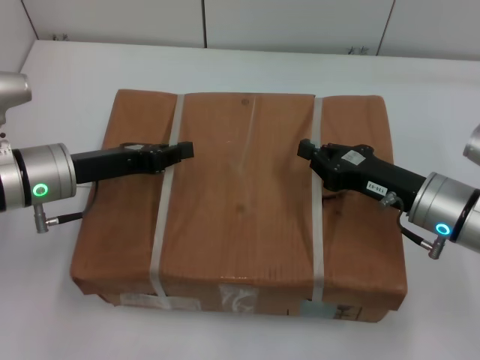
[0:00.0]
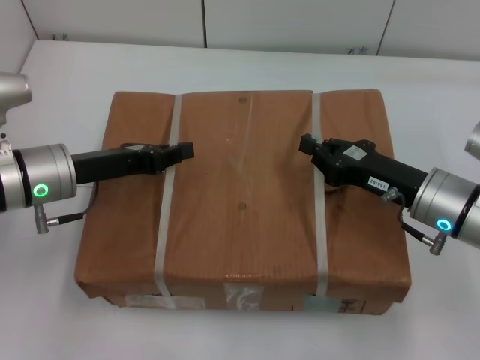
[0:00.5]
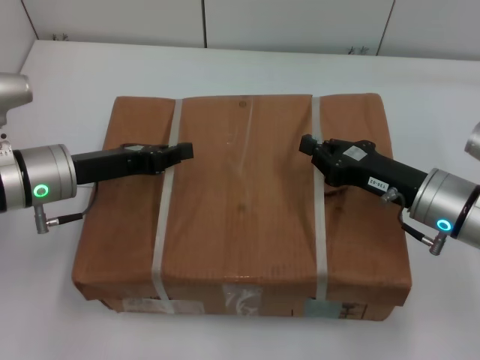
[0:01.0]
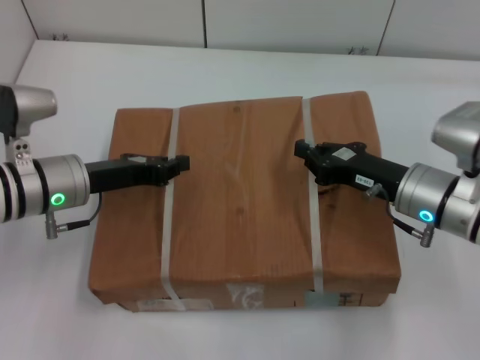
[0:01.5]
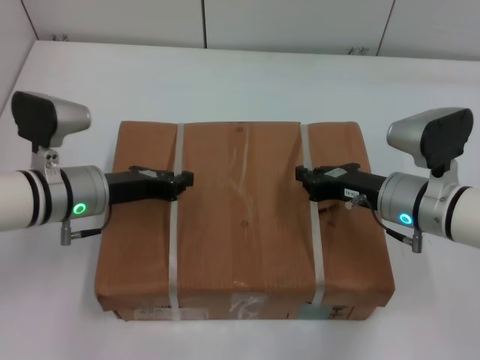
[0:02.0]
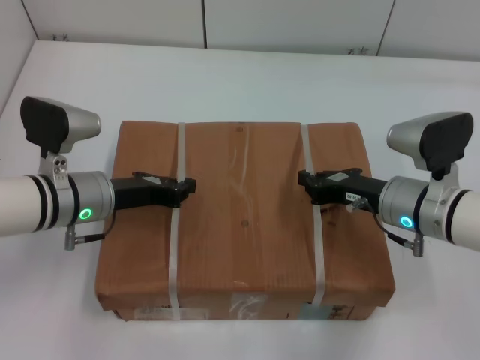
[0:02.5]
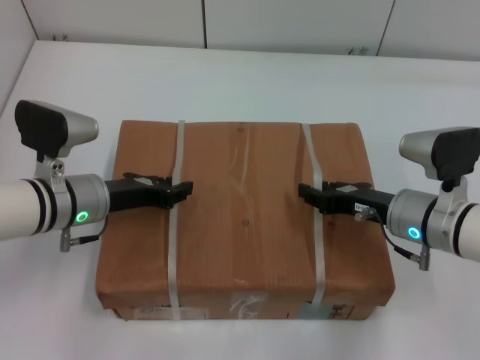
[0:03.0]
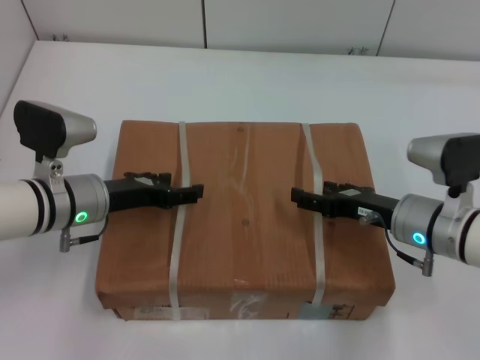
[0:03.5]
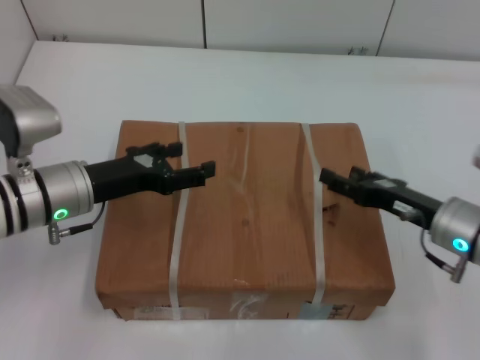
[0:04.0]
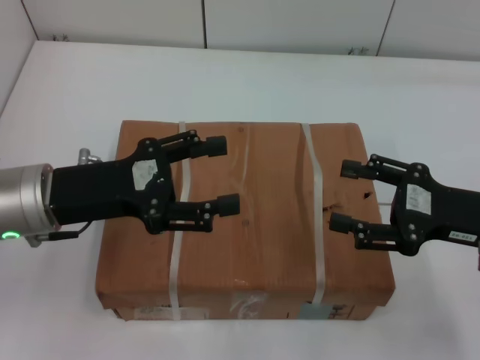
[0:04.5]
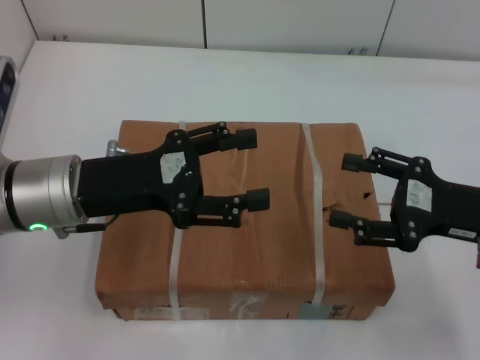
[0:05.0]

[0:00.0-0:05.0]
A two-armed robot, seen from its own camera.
Task of the whole recording: place the box on the table with both arms.
Step, 0:00.0 to 0:02.0: Place the box on the table with left gripper.
Step, 0:00.0 to 0:02.0: Place the box on the table with right gripper.
Step, 0:02.5 to 0:03.0: Loosen the box on the table with left gripper.
Step, 0:02.5 to 0:03.0: Loosen the box on the table with right gripper.
0:00.0 to 0:02.5: The left gripper moves some 5 cm.
0:02.5 to 0:05.0: The left gripper heads upward and backward, covering some 10 cm, and opens. Meanwhile the right gripper heads to the right, upward and backward, covering some 15 cm, and opens its fingers.
